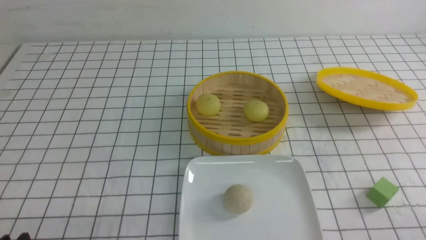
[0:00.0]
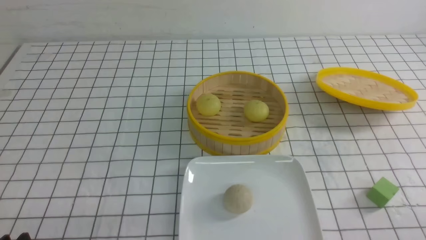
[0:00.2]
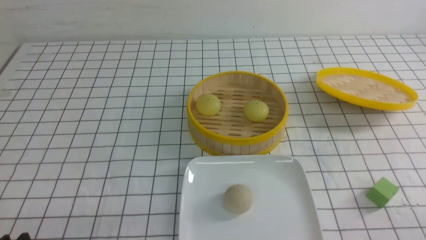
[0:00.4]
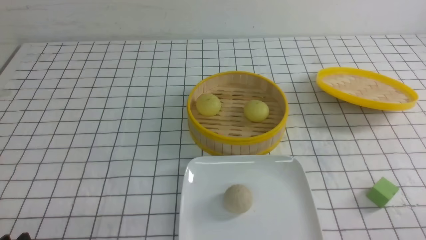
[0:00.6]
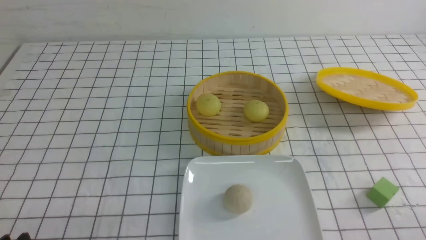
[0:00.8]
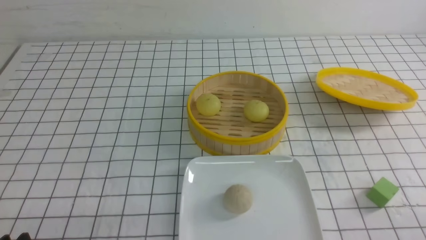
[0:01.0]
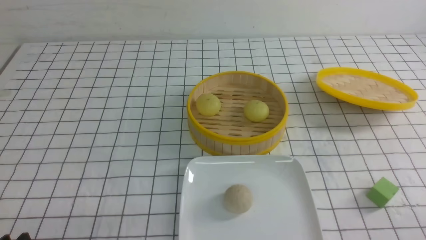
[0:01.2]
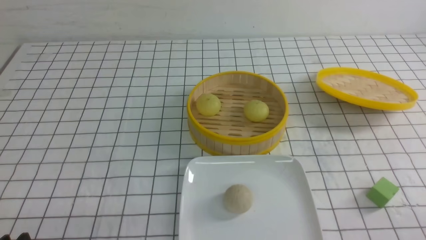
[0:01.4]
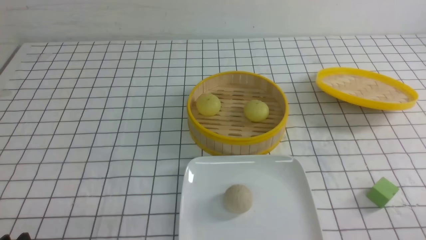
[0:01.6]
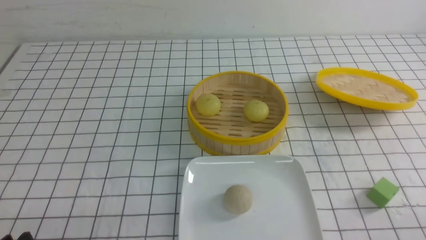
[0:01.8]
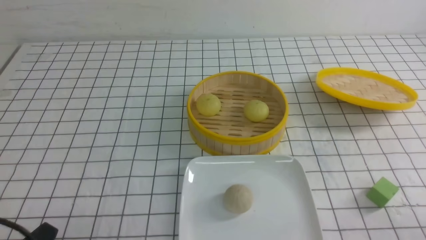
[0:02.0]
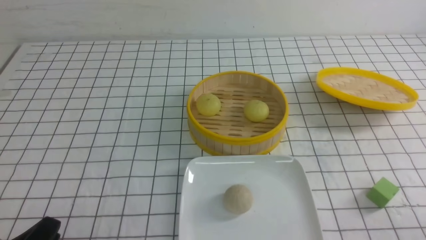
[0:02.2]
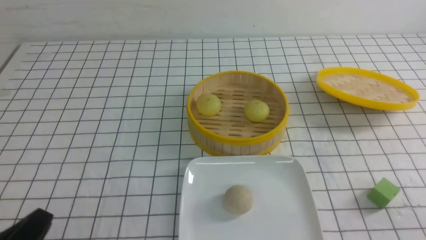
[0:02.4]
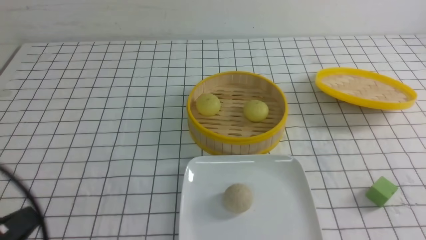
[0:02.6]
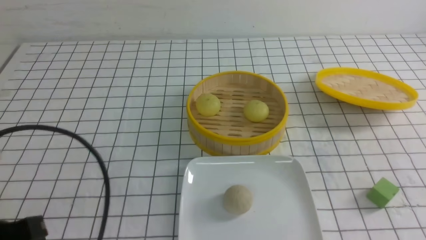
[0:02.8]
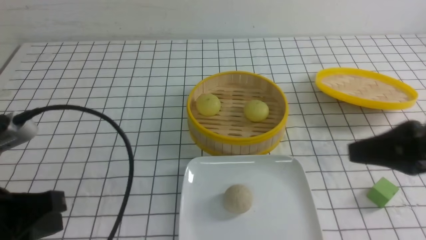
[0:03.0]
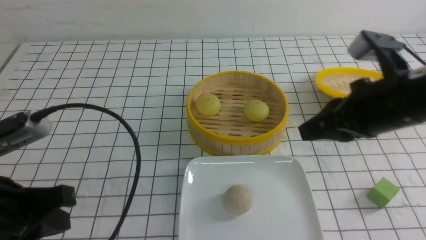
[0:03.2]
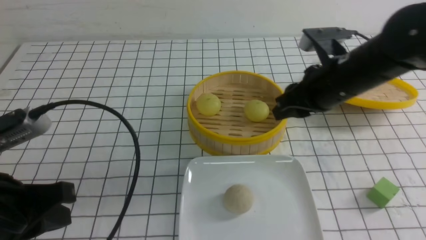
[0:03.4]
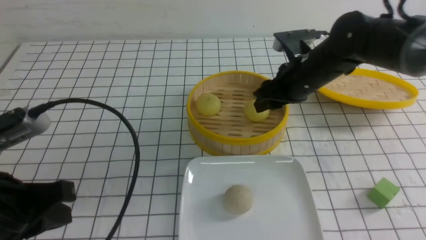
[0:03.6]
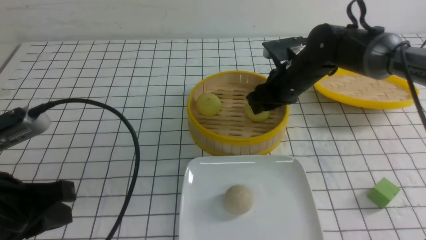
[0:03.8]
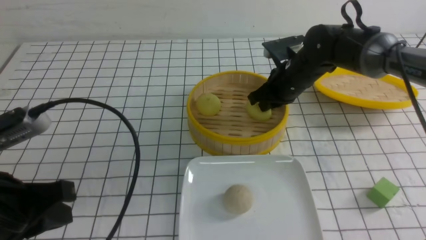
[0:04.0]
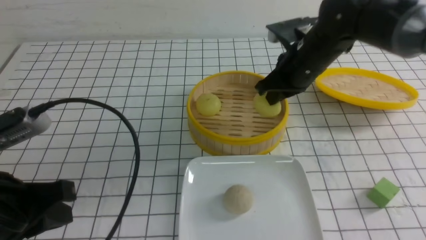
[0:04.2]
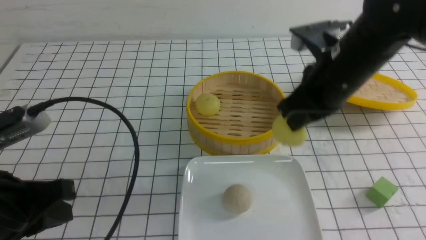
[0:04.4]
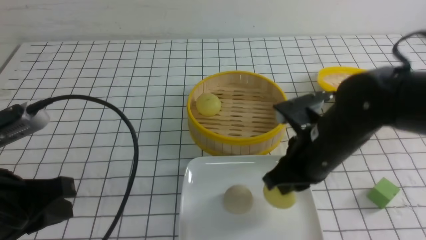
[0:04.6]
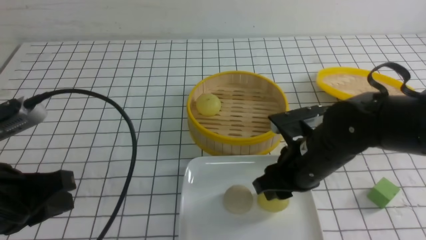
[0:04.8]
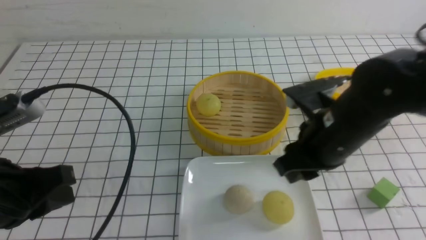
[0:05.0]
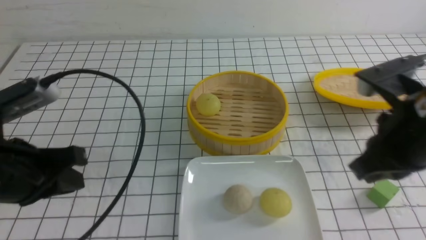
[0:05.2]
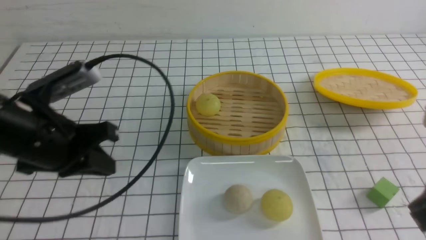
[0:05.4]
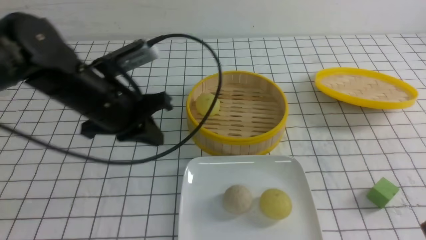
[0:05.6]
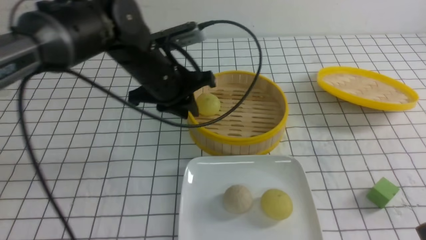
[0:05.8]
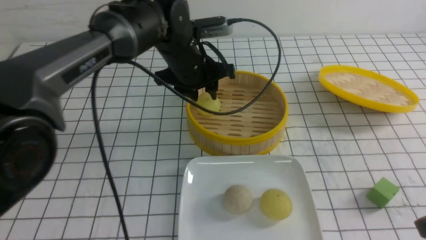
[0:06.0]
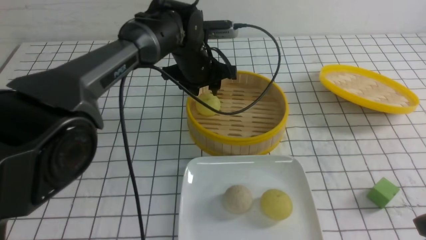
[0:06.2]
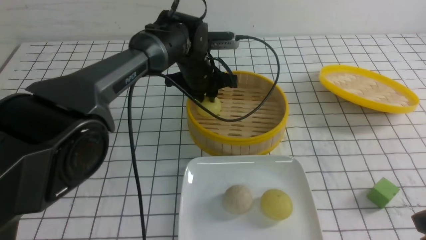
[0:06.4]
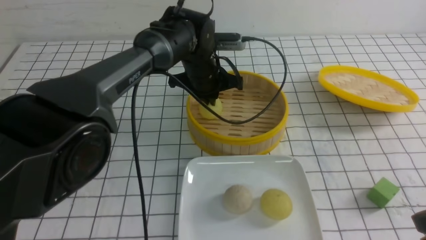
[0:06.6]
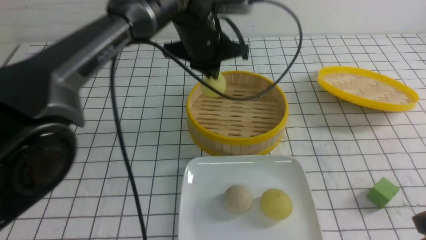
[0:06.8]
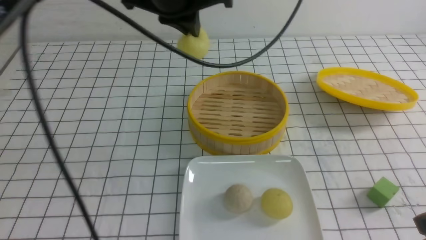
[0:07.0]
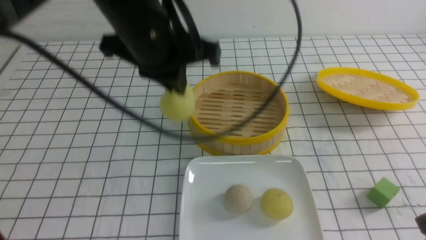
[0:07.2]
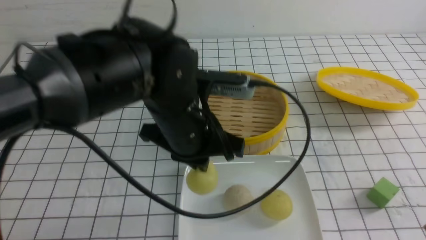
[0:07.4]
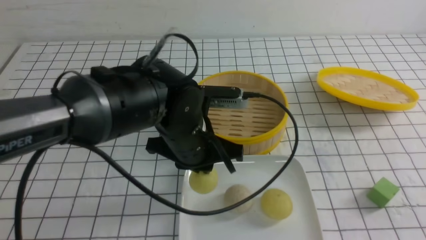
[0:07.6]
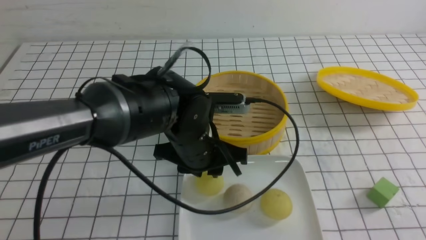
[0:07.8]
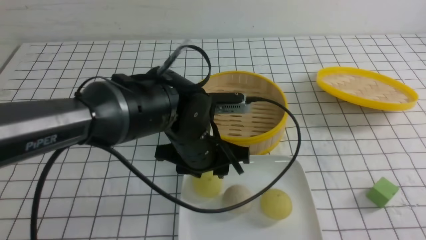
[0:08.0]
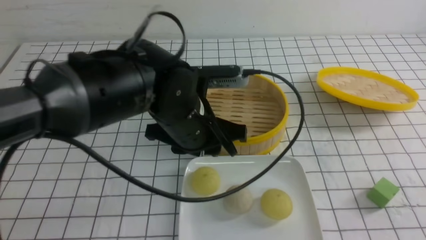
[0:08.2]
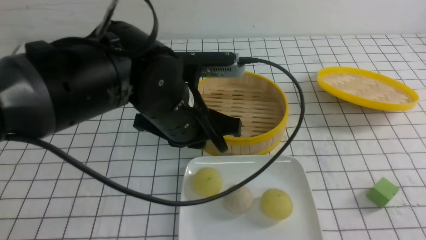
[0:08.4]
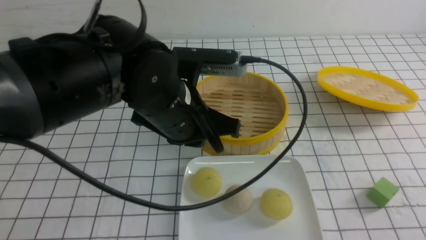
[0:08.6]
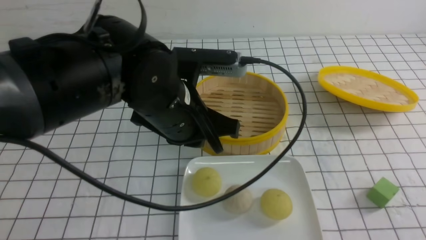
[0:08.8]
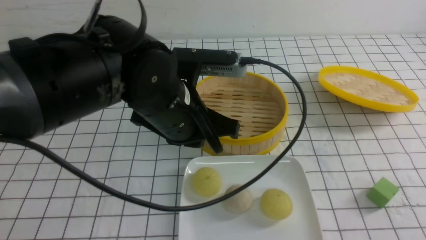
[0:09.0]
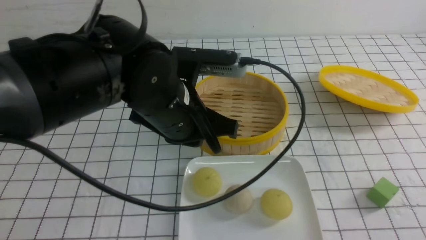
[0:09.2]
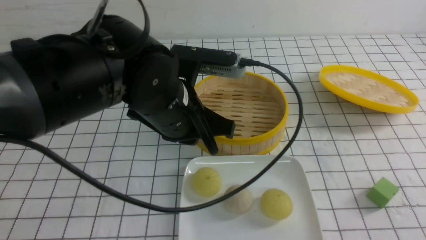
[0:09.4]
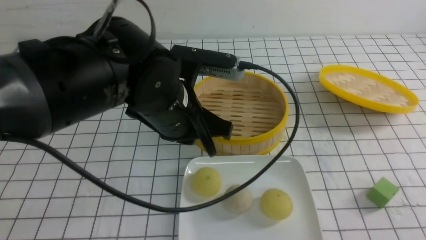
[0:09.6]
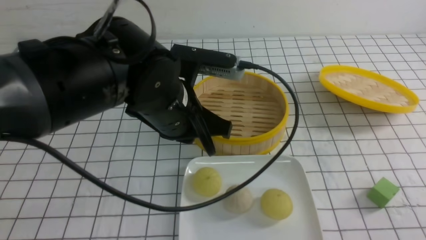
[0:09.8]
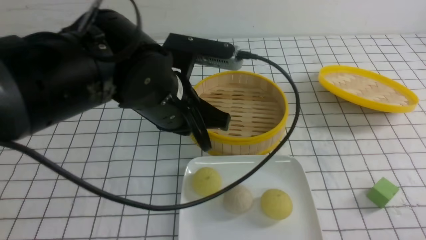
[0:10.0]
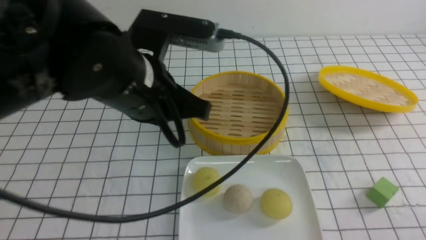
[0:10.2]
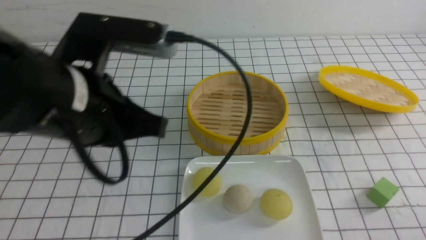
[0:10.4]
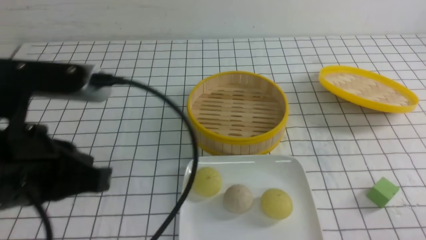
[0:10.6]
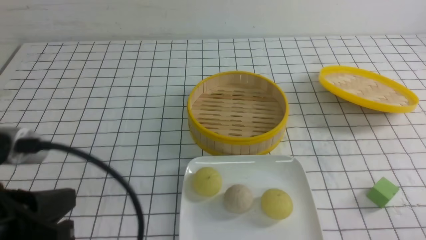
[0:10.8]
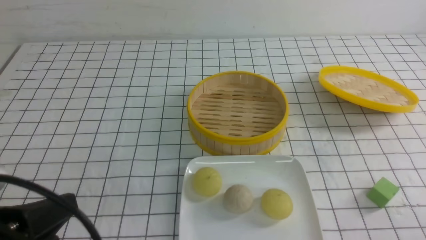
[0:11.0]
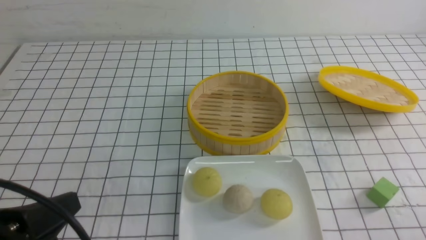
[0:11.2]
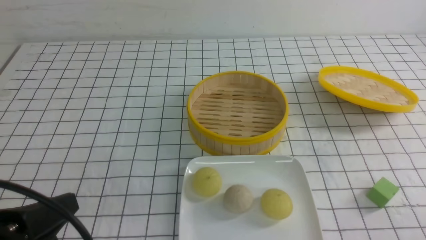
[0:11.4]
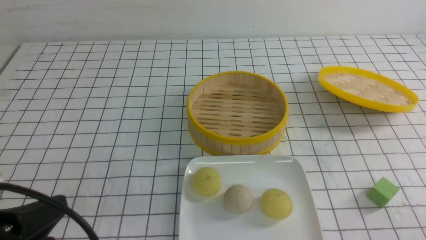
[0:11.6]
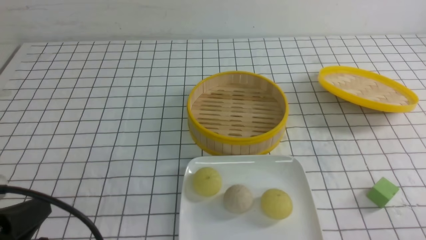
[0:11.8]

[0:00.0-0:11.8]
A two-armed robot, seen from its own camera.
Step, 0:00.0 to 0:04.2: use the right arm to grab the steamed stuffed bun that is closest to it.
Step, 0:04.4 to 0:05.0: use the right arm to put the steamed stuffed bun into the plate.
Step, 0:05.2 to 0:06.6: use the left arm to grab the steamed stuffed bun that is closest to it.
Step, 0:06.8 to 0:08.6: use the left arm to put the steamed stuffed bun into the plate.
0:00.0 to 0:01.4: Both grippers stay about where they are.
0:01.4 to 0:03.0: The left gripper is displaced upward and forward by approximately 15 cm, and closes its fingers; the right gripper shifts roughly 20 cm upward, forward and to the left, and closes its fingers.
0:03.0 to 0:04.4: The right gripper heads forward, to the left and downward, covering roughly 20 cm, and opens, then closes again.
0:04.4 to 0:06.0: The left gripper goes roughly 35 cm forward and to the right, and opens its fingers, while the right gripper heads backward and to the right, covering some 25 cm, and opens, then closes once more.
0:06.0 to 0:07.4: The left gripper heads backward, covering roughly 15 cm, and closes up.
0:07.4 to 0:08.8: The right gripper travels backward by approximately 10 cm; the left gripper moves roughly 5 cm downward and comes back, and opens, then closes again.
0:08.8 to 0:10.4: The right gripper goes roughly 10 cm downward. Meanwhile the left gripper heads to the left, backward and upward, covering some 15 cm.
0:10.4 to 0:11.8: The left gripper is displaced backward, to the left and downward by some 15 cm.

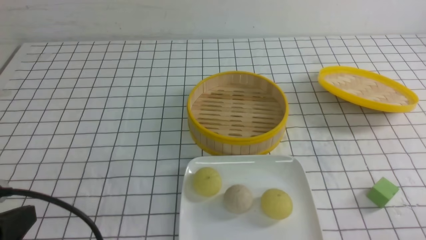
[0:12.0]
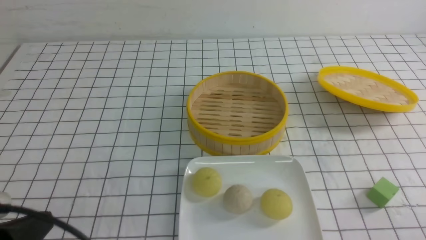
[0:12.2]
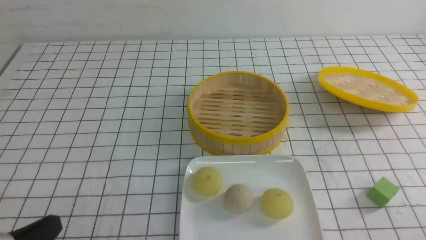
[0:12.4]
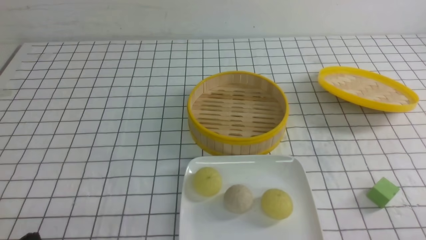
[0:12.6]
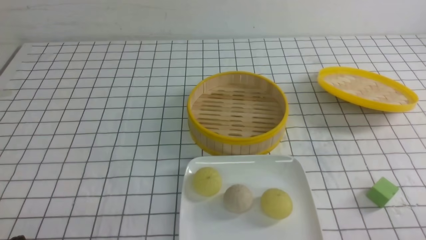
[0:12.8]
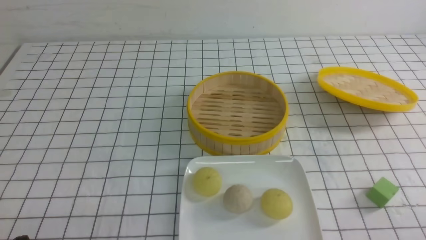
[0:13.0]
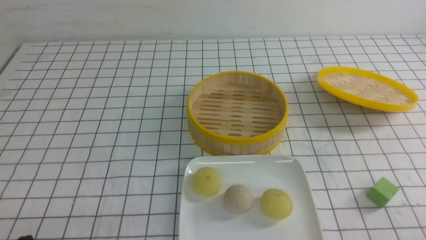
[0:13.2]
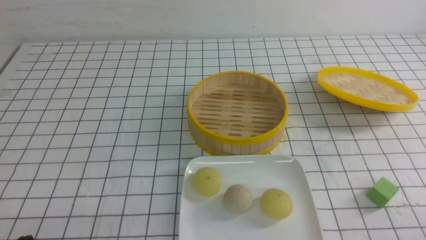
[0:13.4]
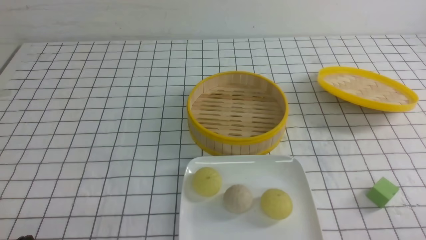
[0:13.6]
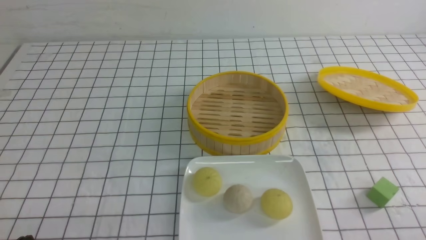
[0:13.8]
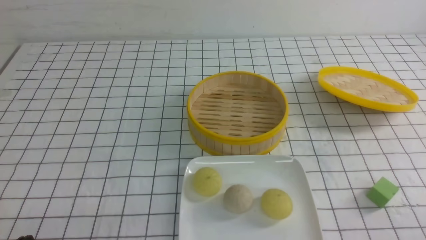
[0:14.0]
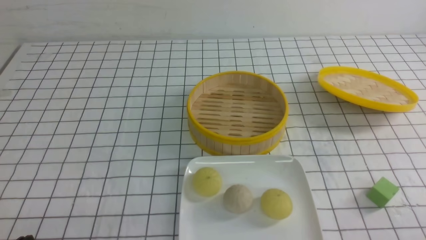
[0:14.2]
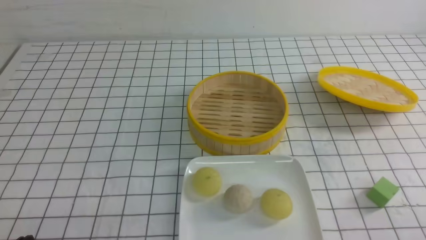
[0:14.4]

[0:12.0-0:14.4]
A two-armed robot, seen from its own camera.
0:12.0 to 0:13.2: The left gripper is displaced downward by roughly 10 cm.
0:13.2 to 0:14.4: Both grippers stay put.
